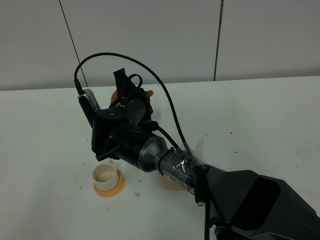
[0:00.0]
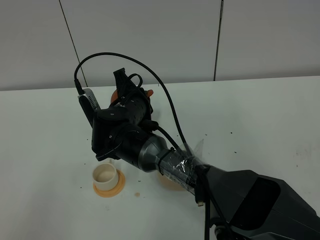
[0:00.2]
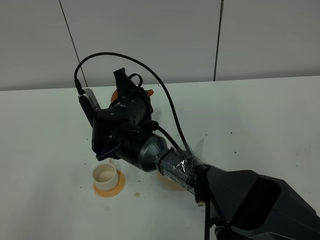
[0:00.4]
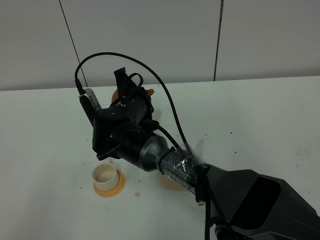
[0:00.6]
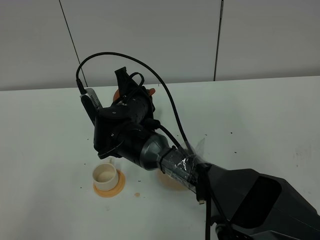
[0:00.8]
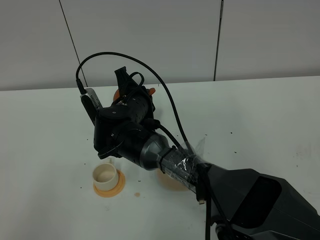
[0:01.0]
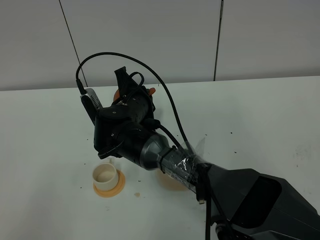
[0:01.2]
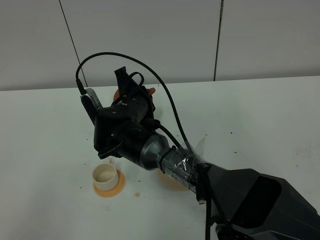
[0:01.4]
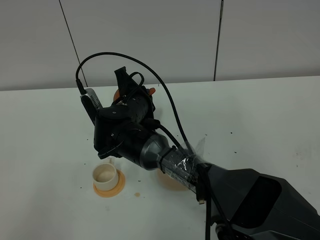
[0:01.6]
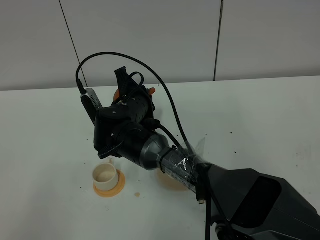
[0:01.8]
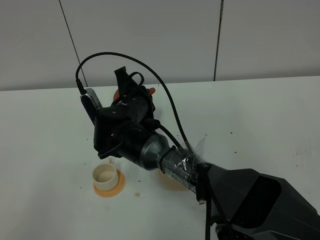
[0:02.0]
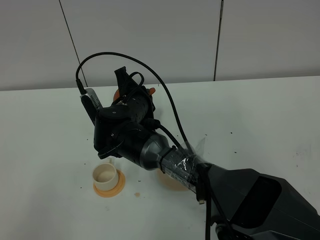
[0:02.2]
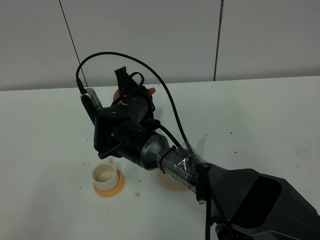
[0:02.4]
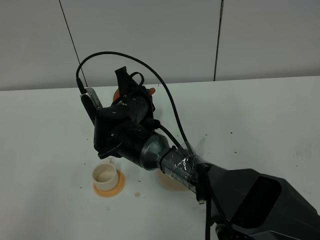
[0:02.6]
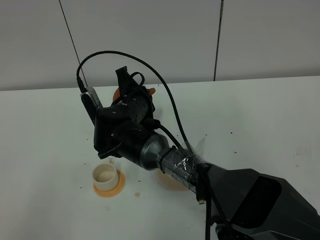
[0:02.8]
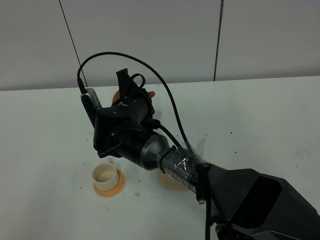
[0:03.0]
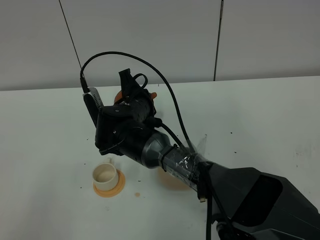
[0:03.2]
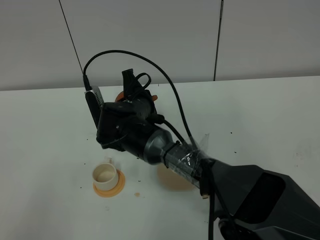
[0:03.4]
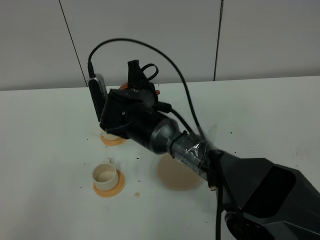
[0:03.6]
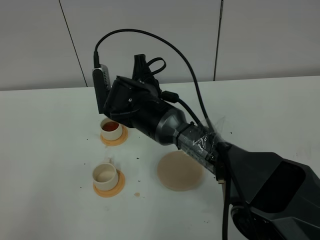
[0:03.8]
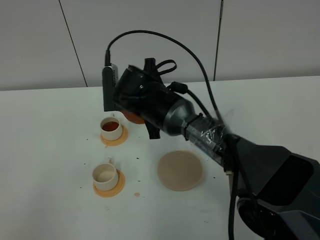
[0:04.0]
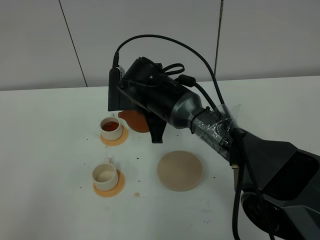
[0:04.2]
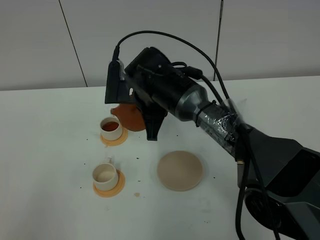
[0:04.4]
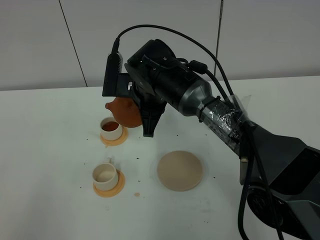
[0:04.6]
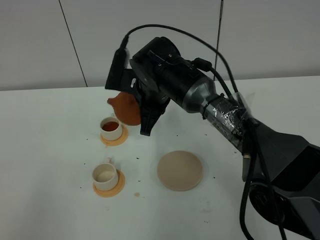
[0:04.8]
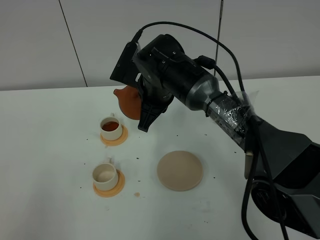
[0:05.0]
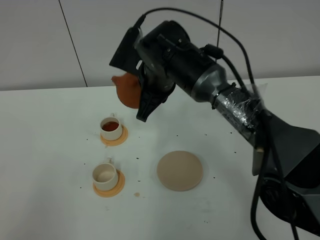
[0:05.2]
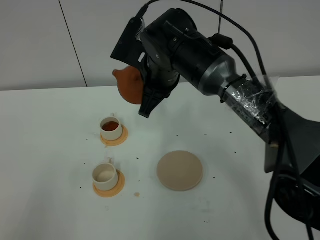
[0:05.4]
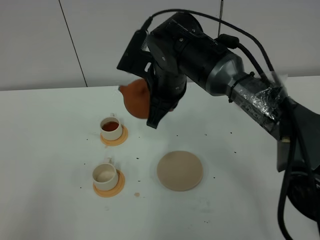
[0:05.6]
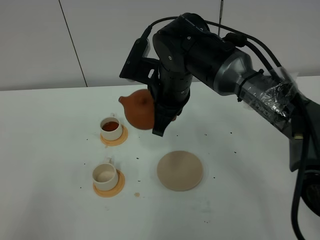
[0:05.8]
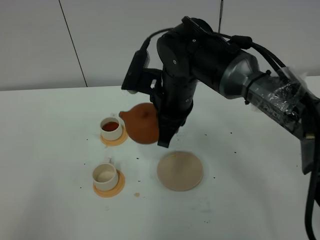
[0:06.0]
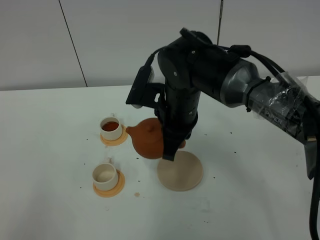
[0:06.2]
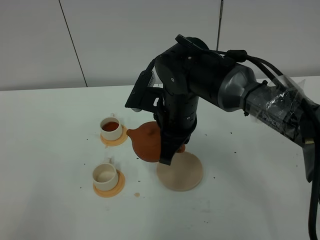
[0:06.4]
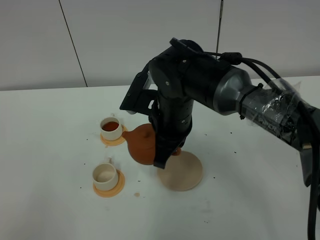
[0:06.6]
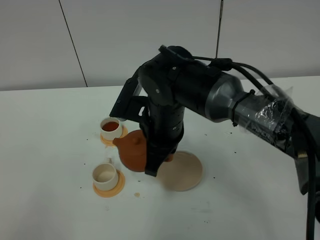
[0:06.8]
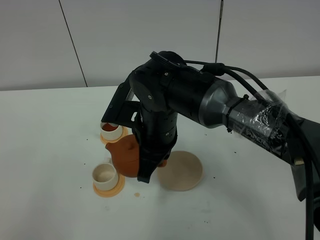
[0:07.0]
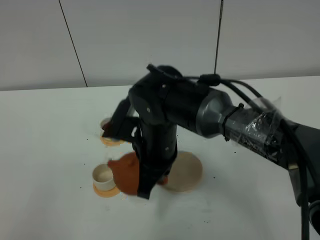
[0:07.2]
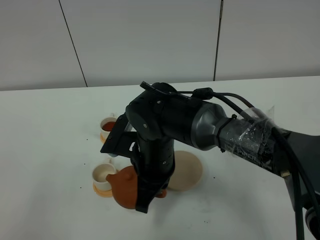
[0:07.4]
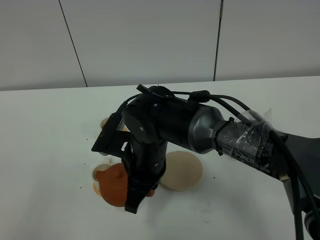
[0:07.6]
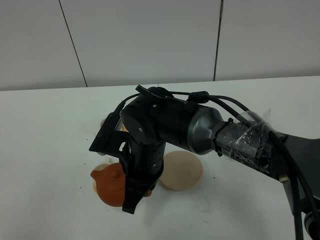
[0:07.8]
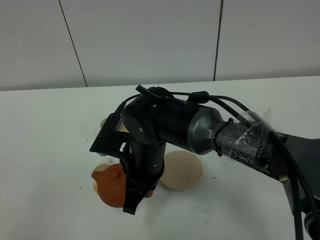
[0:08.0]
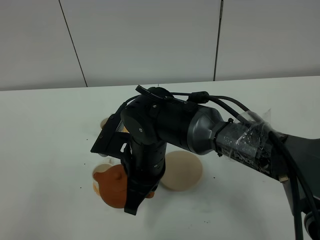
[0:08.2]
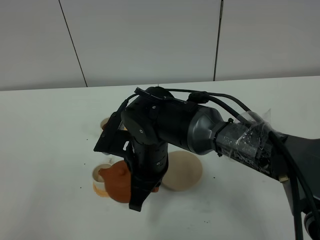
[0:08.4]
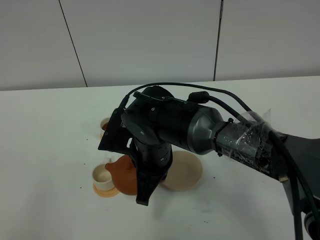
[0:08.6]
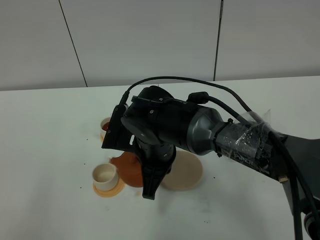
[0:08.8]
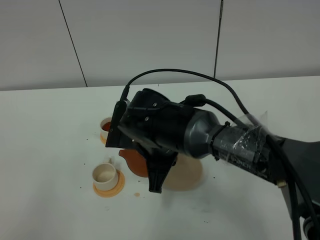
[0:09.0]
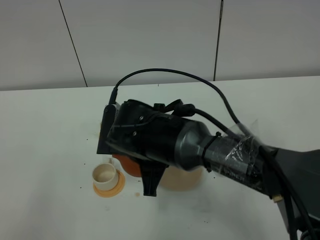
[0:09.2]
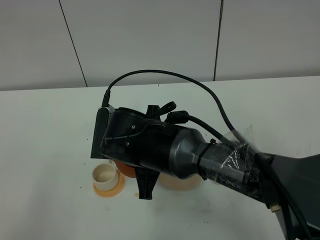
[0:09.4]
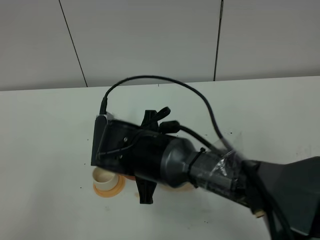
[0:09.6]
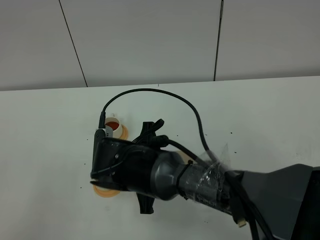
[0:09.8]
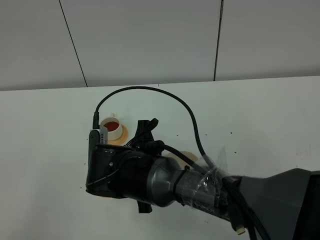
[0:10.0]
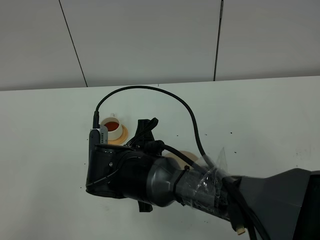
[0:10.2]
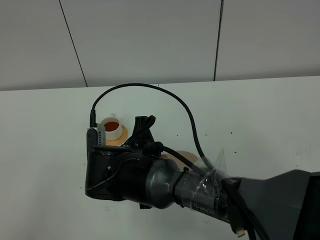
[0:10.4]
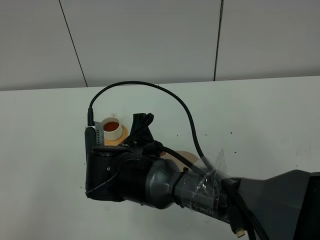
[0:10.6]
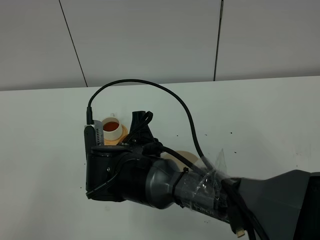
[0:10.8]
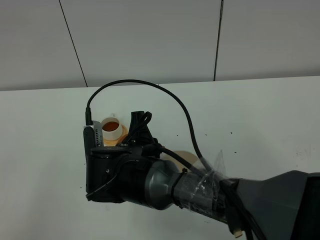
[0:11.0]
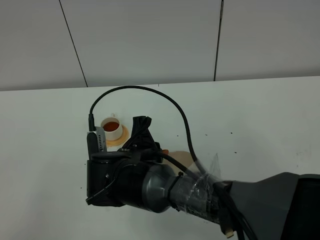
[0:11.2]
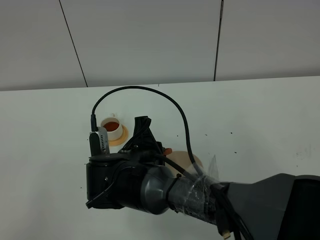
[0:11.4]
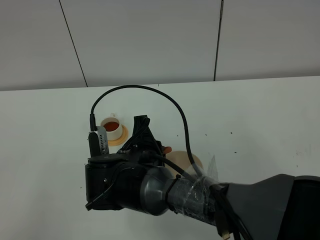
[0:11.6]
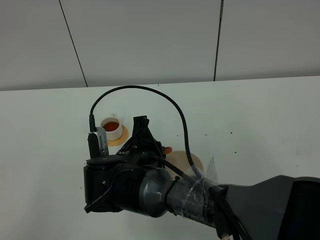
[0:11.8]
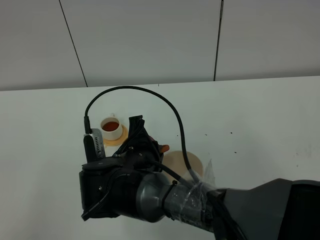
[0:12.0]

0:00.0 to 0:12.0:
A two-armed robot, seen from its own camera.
Task of the whole recording: grasp the brown teapot and pour the tea into the two white teacups one by one, put the brown teapot back in its original place.
Step, 0:00.0 to 0:04.2: Pour tea into the teacup with the right gripper.
0:00.0 to 0:03.0: The two grippers keep their place.
0:03.0 to 0:04.4: The right gripper is displaced upward by about 5 cm.
0:04.4 to 0:06.0: The right gripper ends up approximately 10 cm from where it was.
0:06.0 to 0:07.6: The right gripper is displaced backward, downward and to the left by some 10 cm.
0:09.0 to 0:10.4: The right gripper ends up approximately 5 cm from where it was.
0:10.4 to 0:12.0: The grippers move only a little.

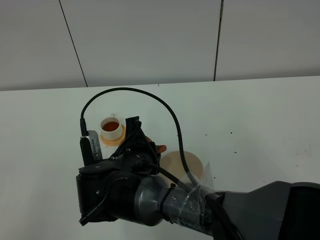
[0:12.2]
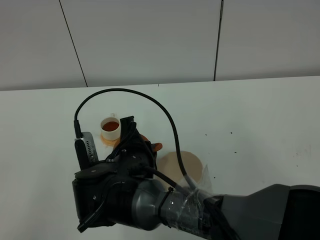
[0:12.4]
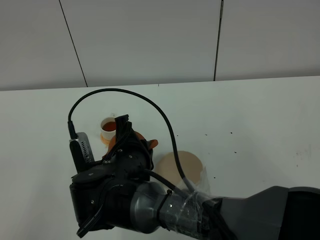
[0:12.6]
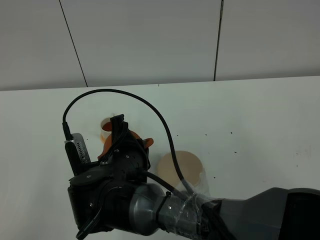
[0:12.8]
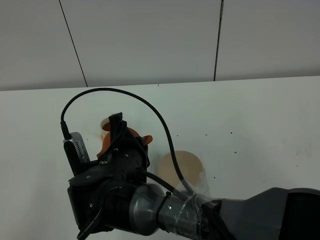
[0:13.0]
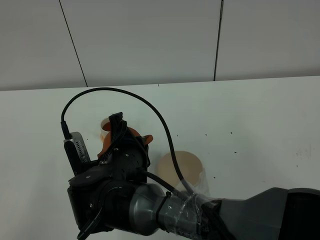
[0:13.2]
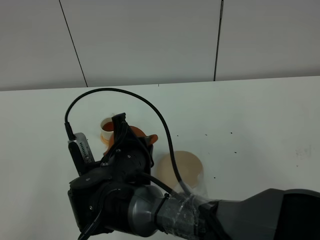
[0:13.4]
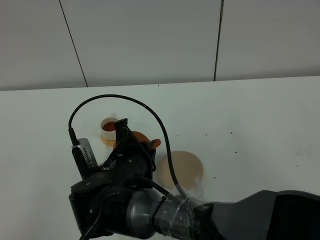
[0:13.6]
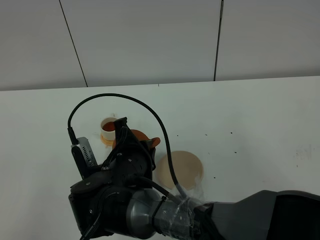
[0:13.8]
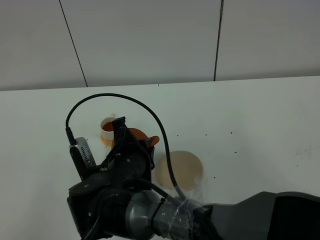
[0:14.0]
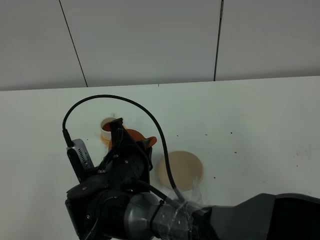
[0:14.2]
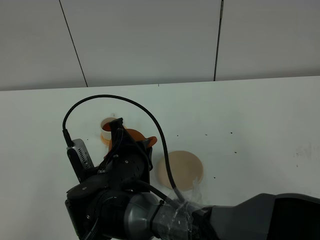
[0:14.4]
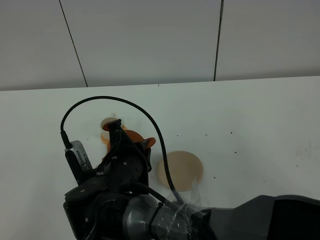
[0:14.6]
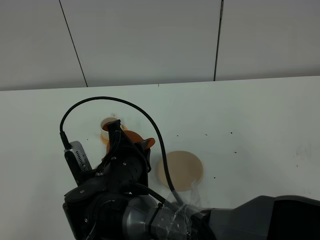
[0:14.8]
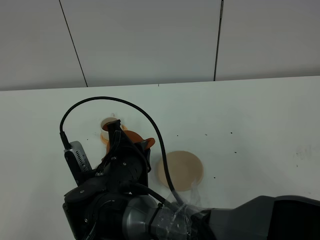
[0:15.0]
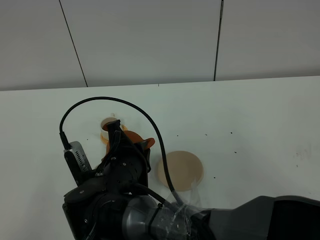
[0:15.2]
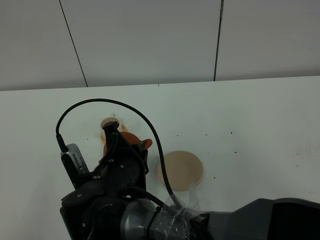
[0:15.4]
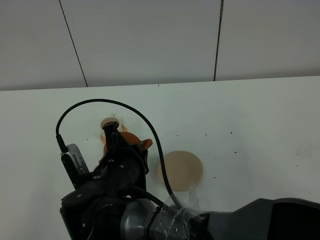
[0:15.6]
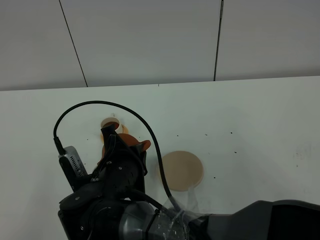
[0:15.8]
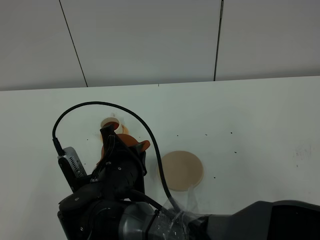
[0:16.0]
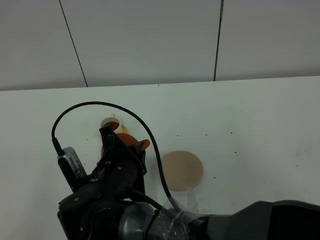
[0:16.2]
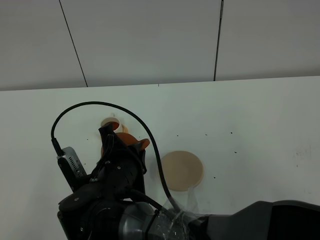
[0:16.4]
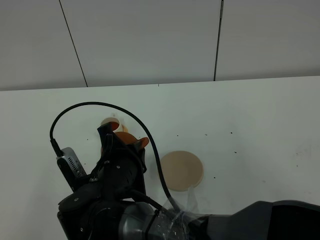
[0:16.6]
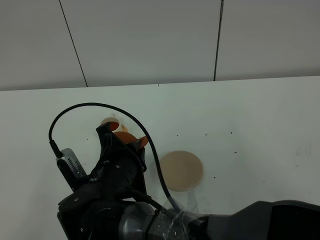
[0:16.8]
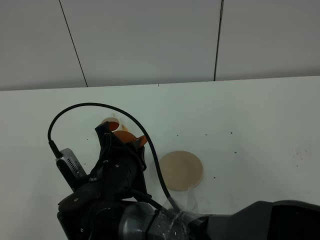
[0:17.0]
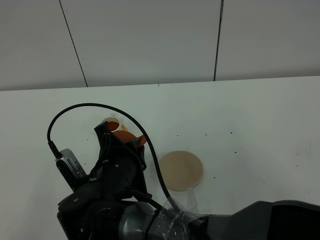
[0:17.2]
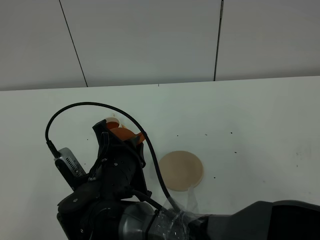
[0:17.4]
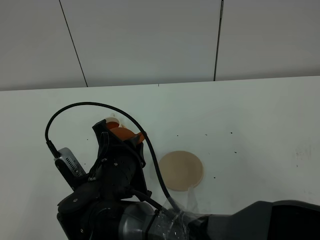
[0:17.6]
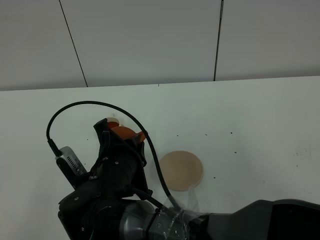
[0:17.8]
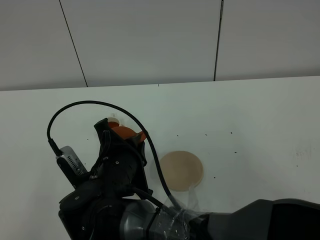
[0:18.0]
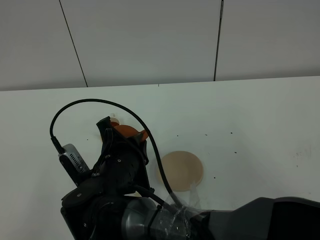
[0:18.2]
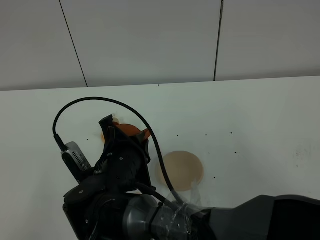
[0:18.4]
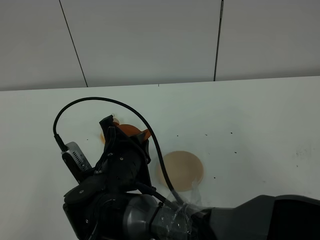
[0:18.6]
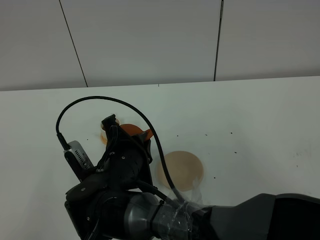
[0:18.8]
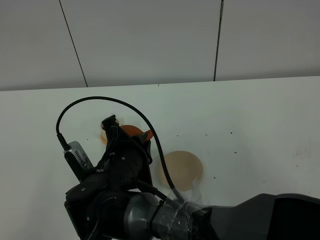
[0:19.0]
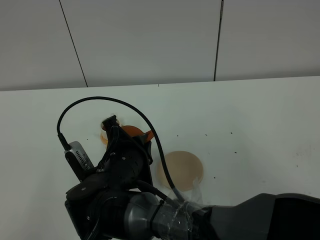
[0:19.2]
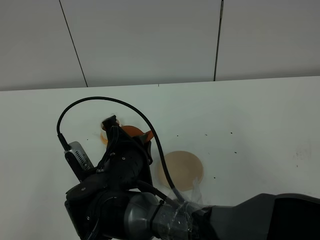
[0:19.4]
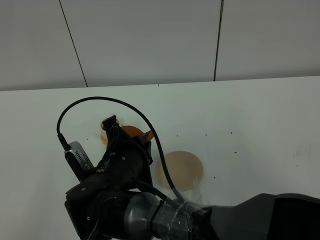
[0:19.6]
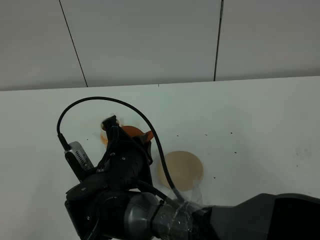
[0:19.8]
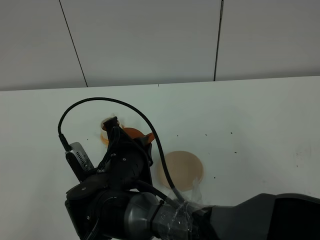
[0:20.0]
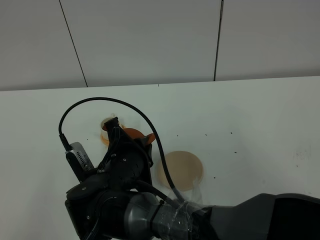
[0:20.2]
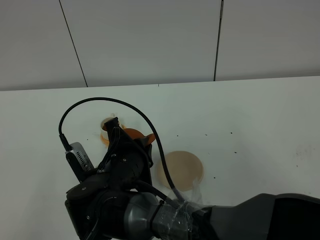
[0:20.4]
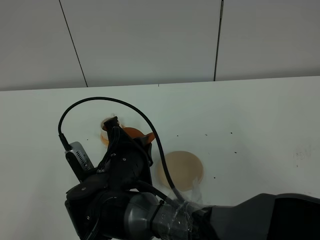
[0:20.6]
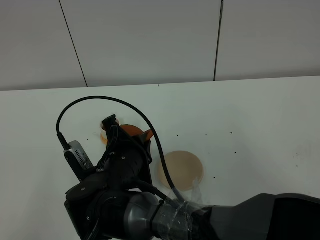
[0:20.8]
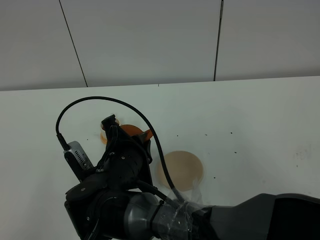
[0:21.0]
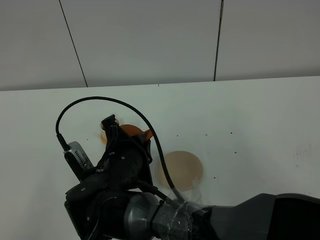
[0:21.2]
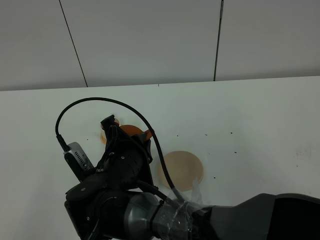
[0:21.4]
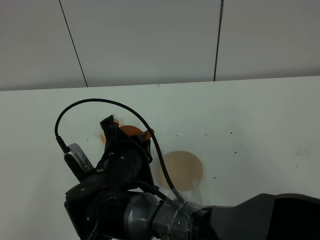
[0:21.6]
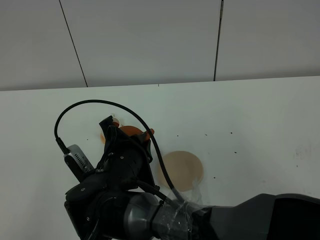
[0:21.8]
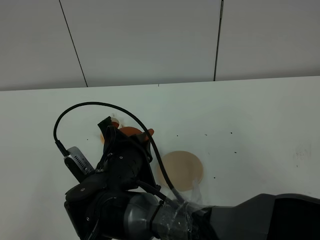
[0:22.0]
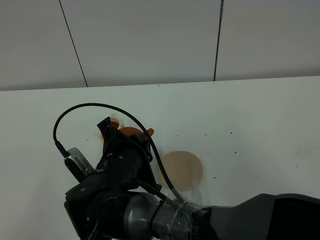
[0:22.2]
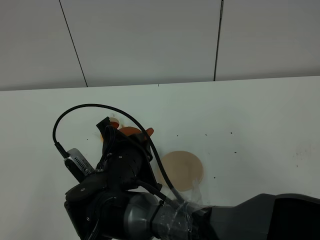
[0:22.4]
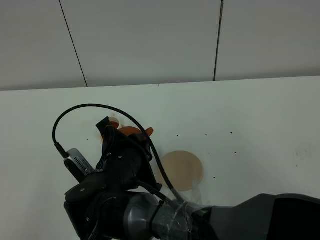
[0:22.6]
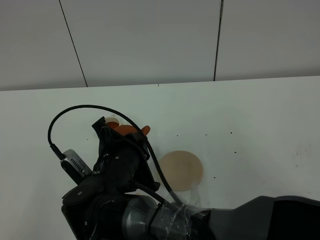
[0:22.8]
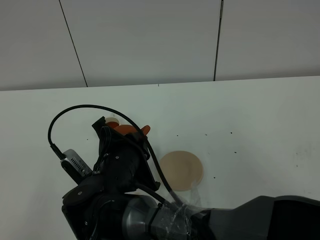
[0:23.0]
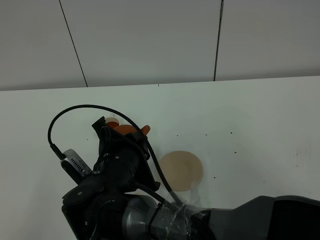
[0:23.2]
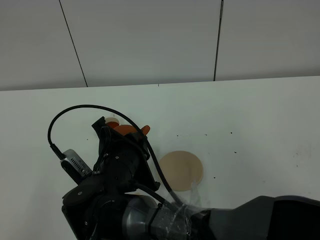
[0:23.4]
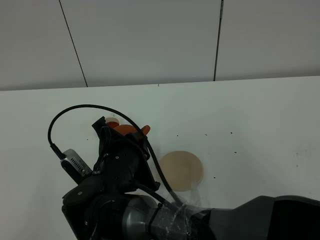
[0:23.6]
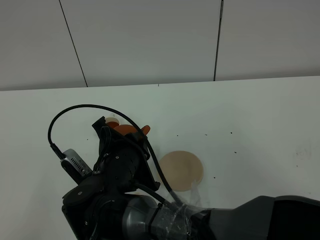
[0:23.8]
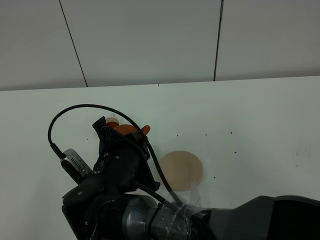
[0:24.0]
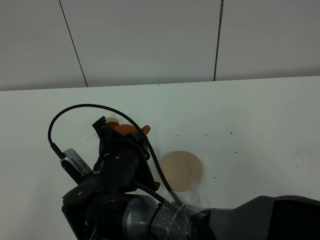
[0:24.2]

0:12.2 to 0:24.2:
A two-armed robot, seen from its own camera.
Task of the whole recording: grasp the brown teapot and pour the tea into the two white teacups one by one, put the brown teapot back in its original place.
0:12.2 to 0:13.8: There are only small adjustments of the grippers.
0:13.8 to 0:15.2: The two grippers keep their place.
0:15.2 to 0:16.6: The two grippers keep their place.
0:16.6 to 0:18.2: The two grippers keep their place.
0:18.2 to 0:21.2: Neither gripper changes place.
0:21.2 to 0:22.6: The grippers stay close to where they were, moving slightly.
0:22.6 to 0:24.2: Both grippers stay put.
